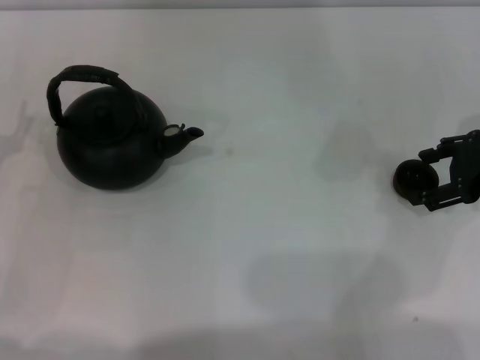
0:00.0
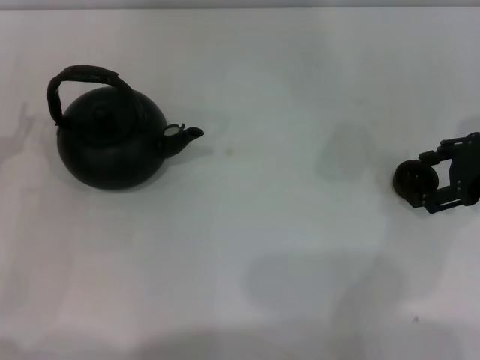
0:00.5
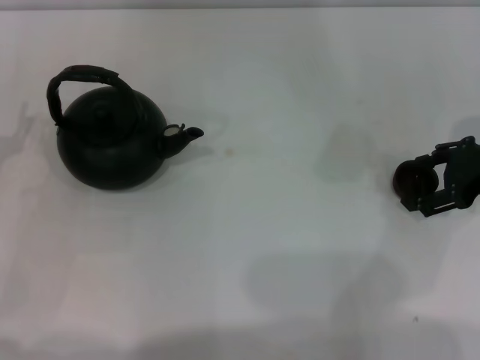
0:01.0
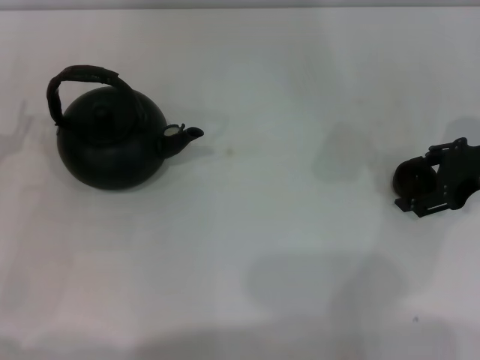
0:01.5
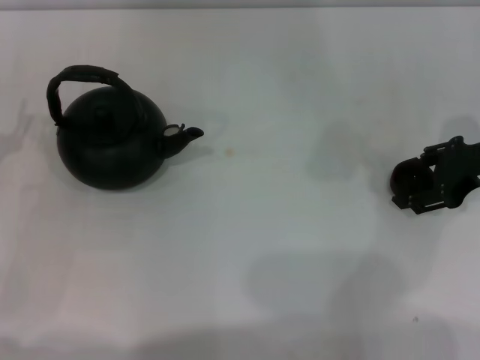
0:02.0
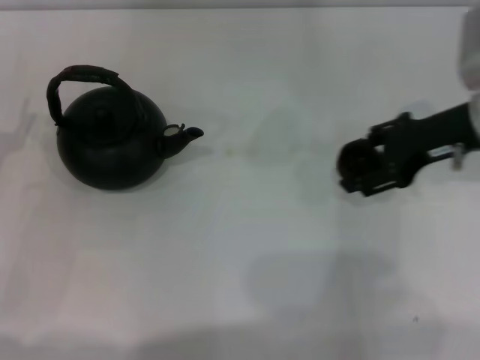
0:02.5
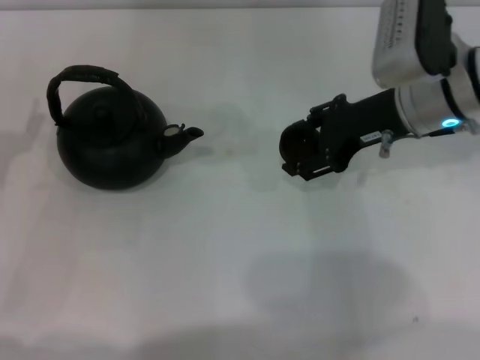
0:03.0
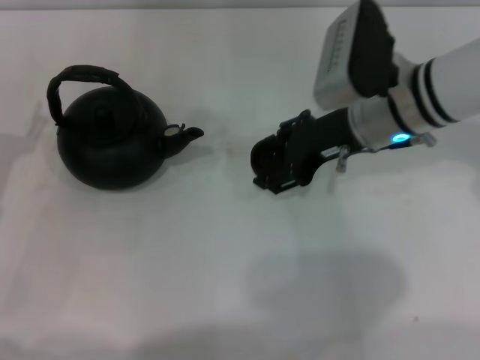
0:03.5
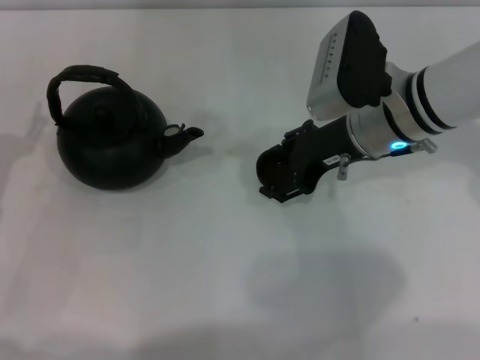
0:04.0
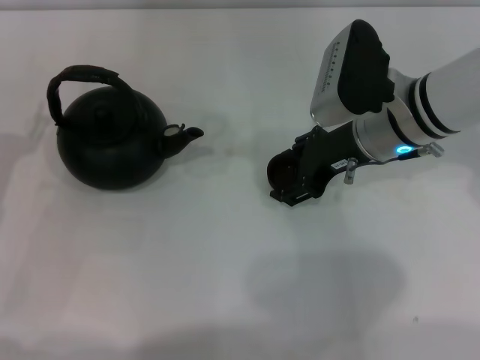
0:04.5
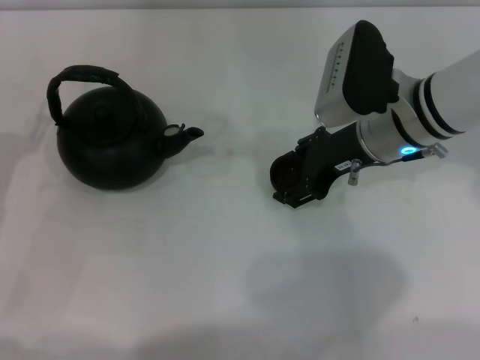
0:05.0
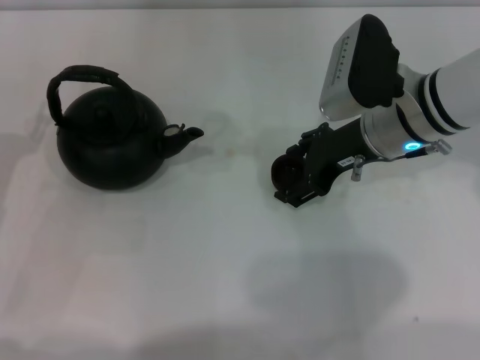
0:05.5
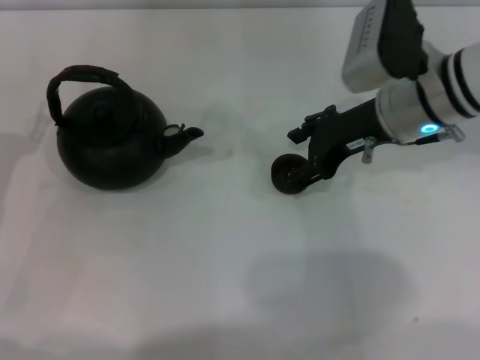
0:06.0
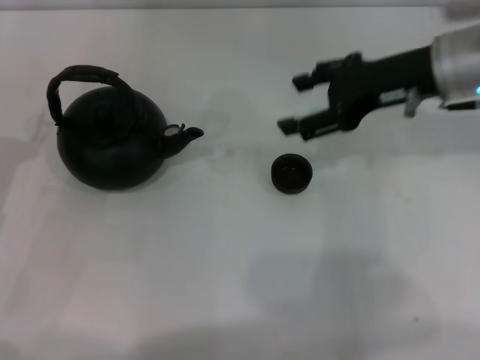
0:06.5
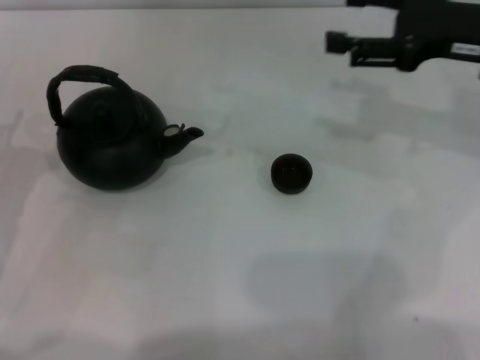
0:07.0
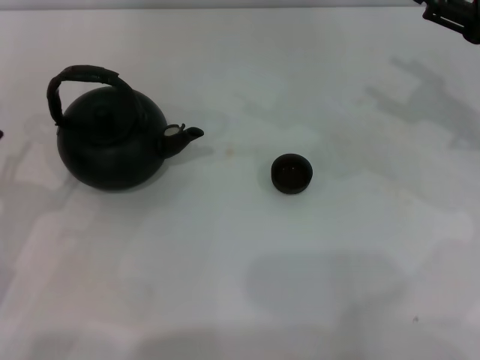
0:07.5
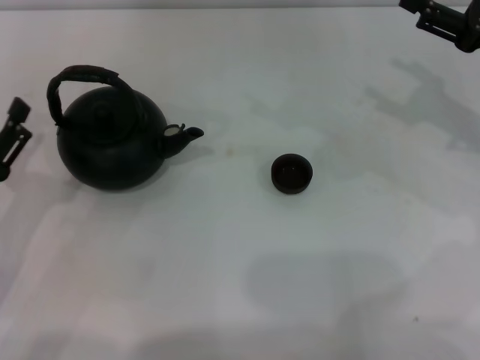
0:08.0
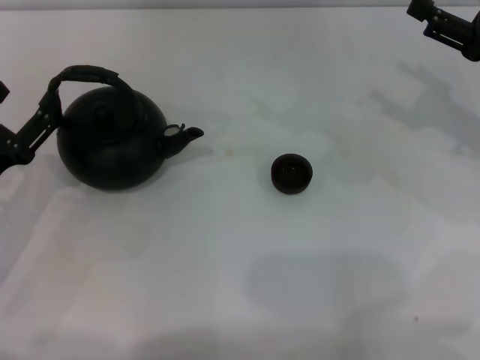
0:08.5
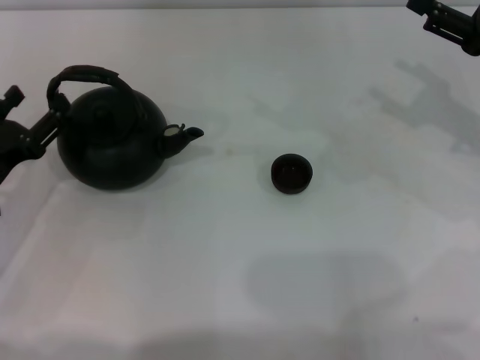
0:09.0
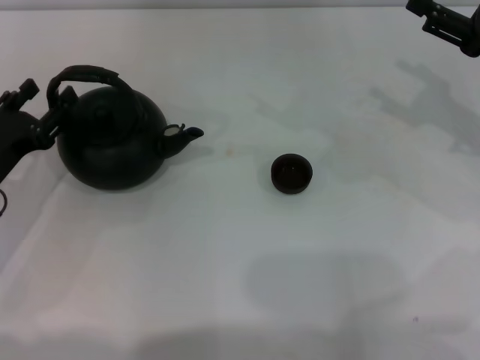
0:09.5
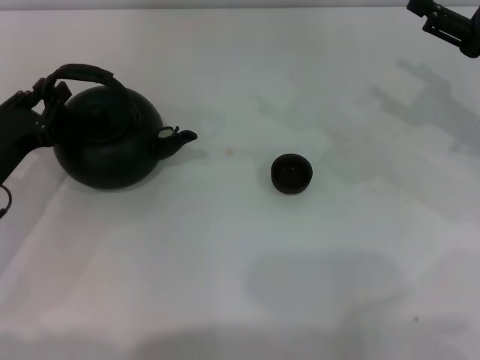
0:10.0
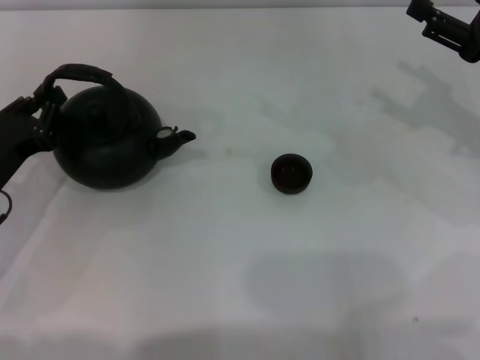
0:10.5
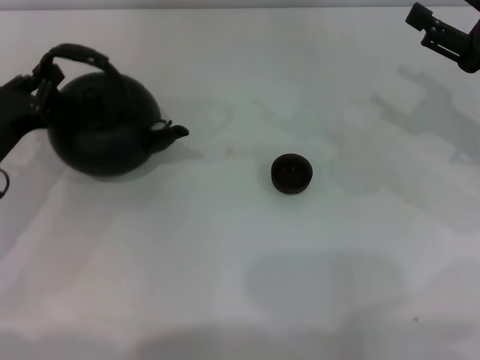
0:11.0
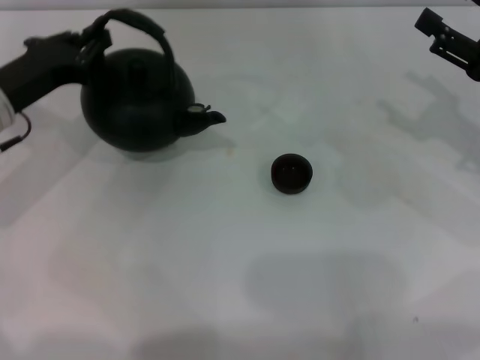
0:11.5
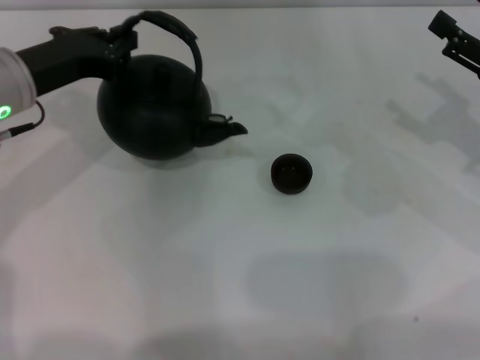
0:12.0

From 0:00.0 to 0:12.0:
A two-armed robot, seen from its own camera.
Task of the whole recording: Grasp the handle of the teapot with one hand and pour tea into the teacup.
Step, from 0:02.5 to 0:06.0: Place the teacup in the center of view with the right gripper.
Step, from 0:06.5 to 0:11.5: Pick up the teapot with the left gripper.
From 0:00.0 to 0:02.0: The right gripper closes up.
From 0:02.0 to 0:04.0: The right gripper goes roughly 15 cm to the left.
From 0:04.0 to 0:06.0: The right gripper opens.
From 0:06.0 to 0:08.0: The left gripper changes place by some 5 cm. Meanwhile the right gripper shifts roughly 15 cm to the right.
From 0:08.0 to 0:10.0: The left gripper moves forward, roughly 5 cm, and closes up.
From 0:10.0 to 0:12.0: The left gripper travels upward, forward and to the right by approximately 15 cm, and closes.

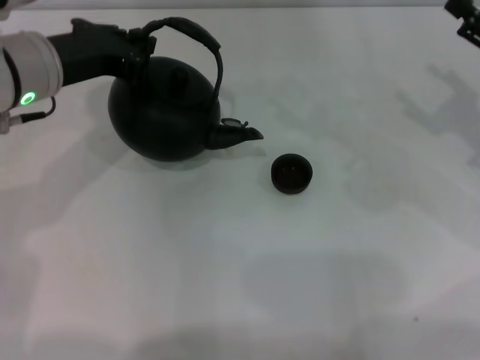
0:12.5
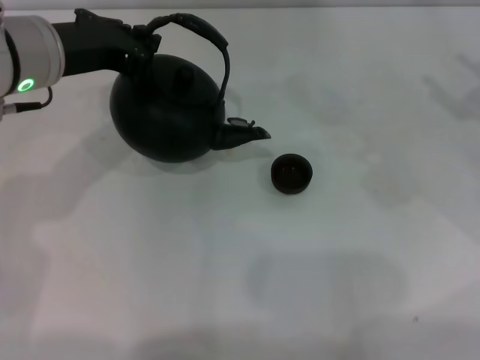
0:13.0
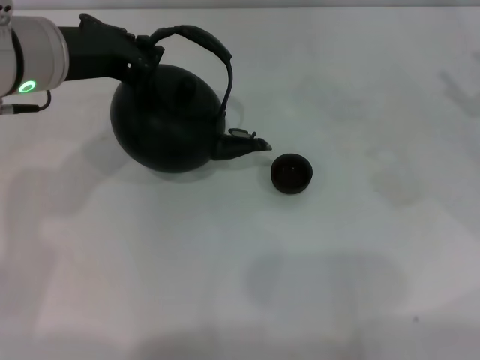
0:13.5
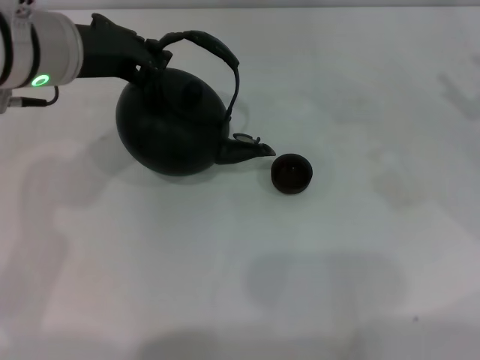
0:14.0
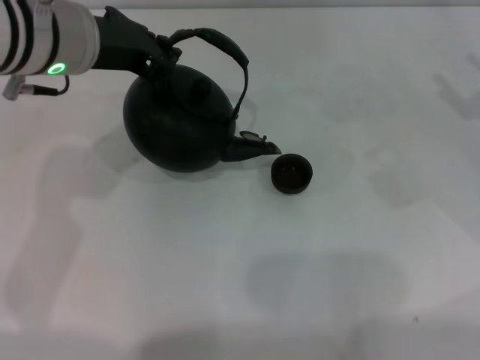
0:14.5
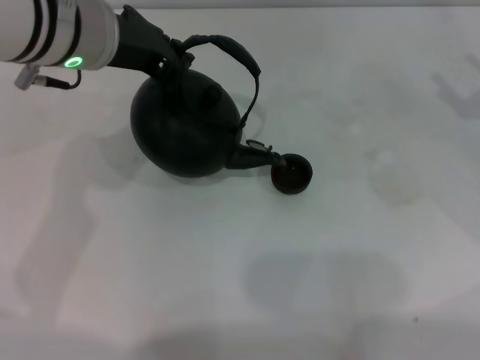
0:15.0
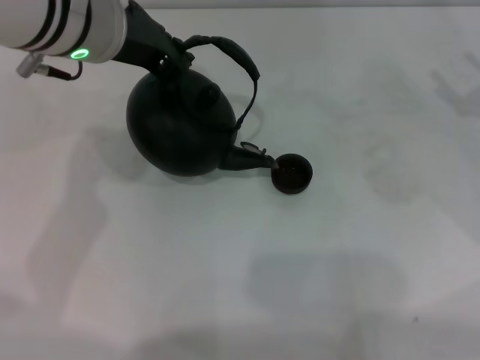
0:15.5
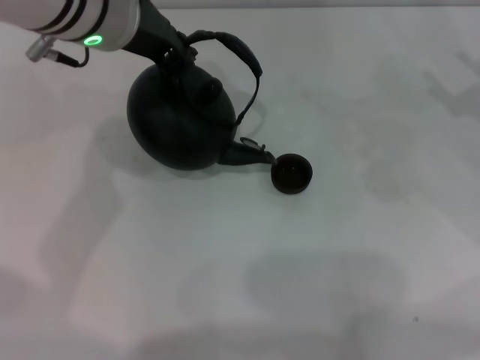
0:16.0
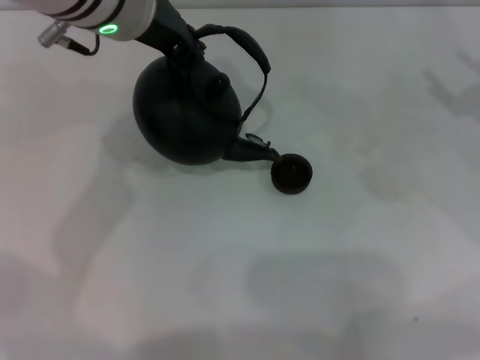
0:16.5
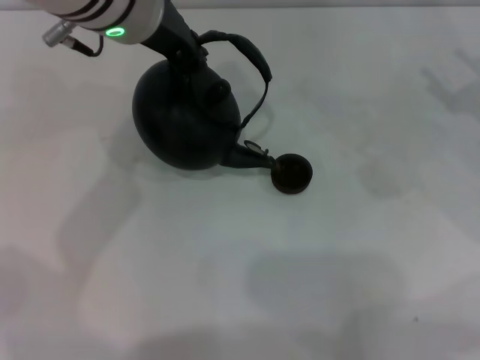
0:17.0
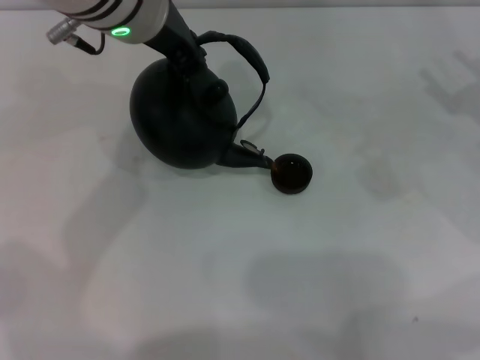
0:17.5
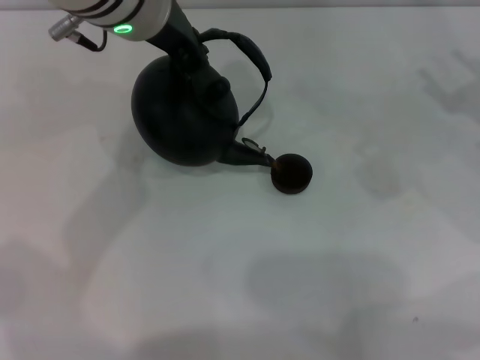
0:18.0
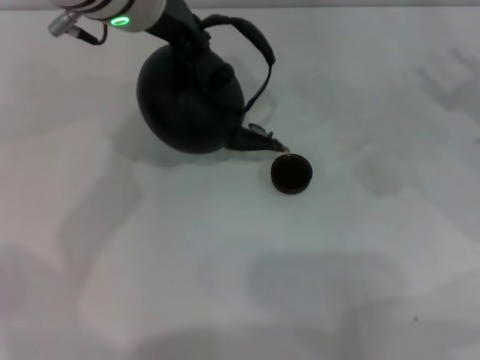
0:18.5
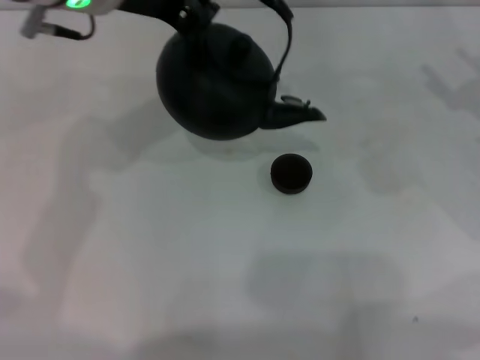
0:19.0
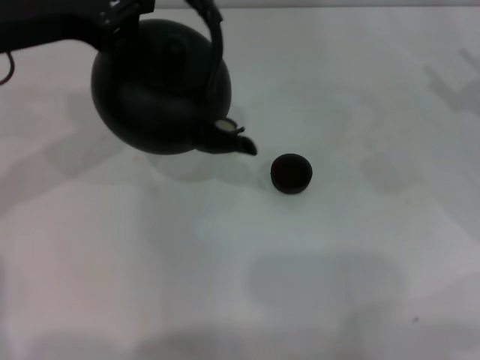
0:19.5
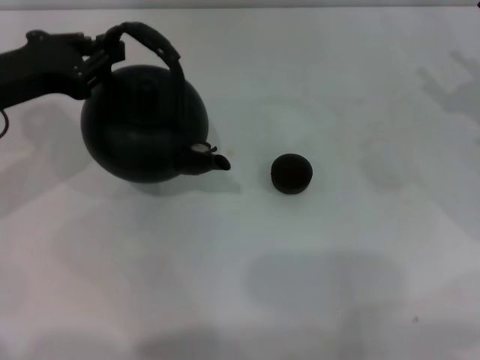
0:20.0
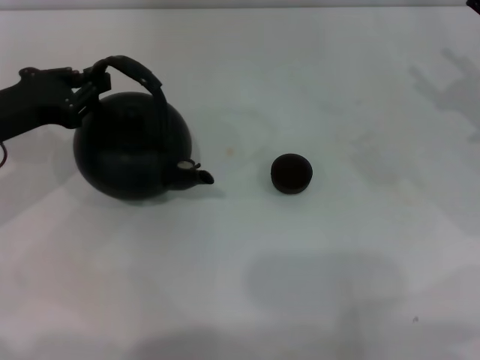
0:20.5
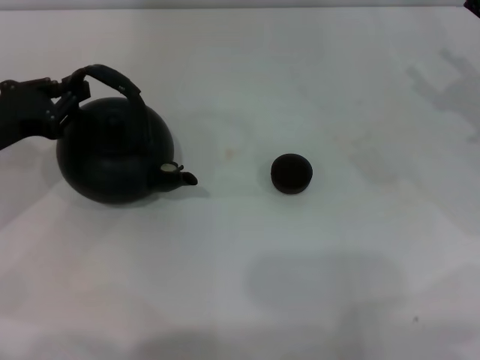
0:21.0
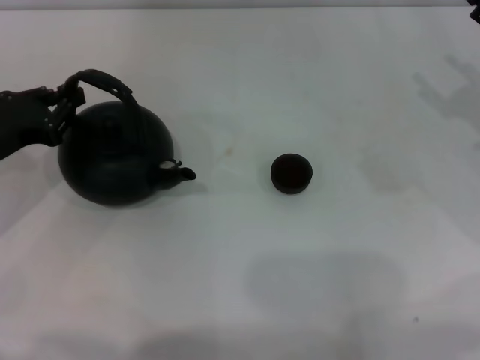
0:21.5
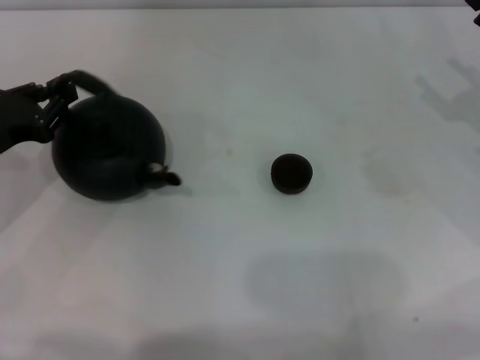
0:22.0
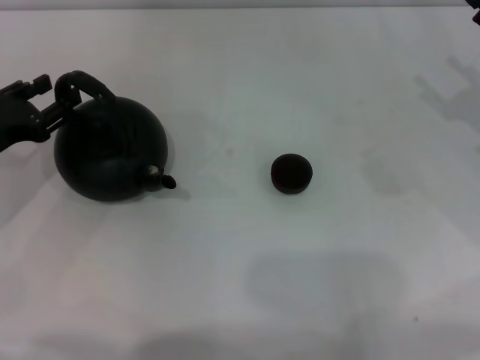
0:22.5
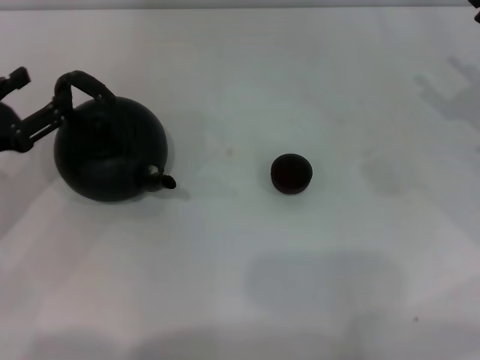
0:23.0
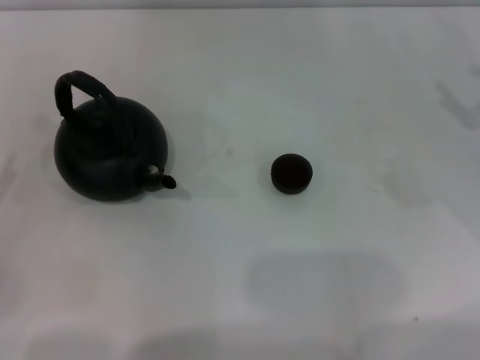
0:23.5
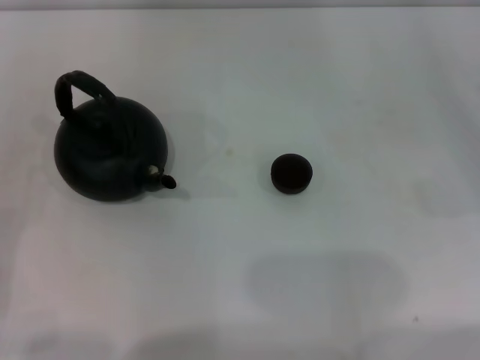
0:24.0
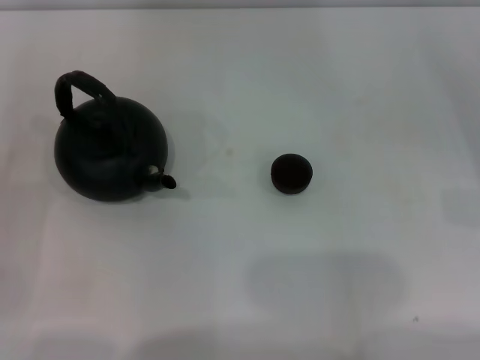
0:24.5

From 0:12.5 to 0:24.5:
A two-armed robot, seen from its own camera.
Task of the whole recording: Grasp the handle of the teapot with one hand and pour tea into the teacup.
Step, from 0:12.5 to 0:18.5: Pour tea into the teacup with the left gripper.
Step, from 0:19.0 to 0:23.0: Put down the teapot with the left gripper.
From 0:12.5 to 0:14.5: The left gripper shifts by roughly 5 cm.
From 0:14.5 to 0:16.5: The left gripper travels to the right by some 5 cm.
From 0:16.5 to 0:18.5: There are only small adjustments of the grippers.
From 0:18.5 to 0:20.5: The left gripper shifts about 25 cm to the left and downward.
From 0:20.5 to 0:22.5: The left gripper opens up.
From 0:22.5 to 0:24.5: The left gripper travels backward by some 10 cm, and opens.
